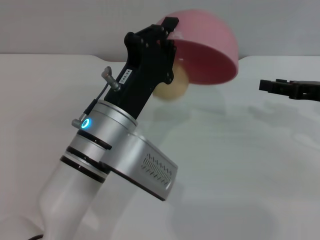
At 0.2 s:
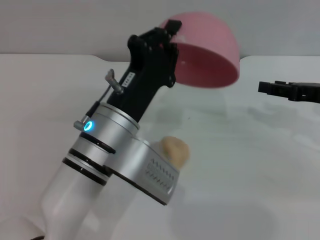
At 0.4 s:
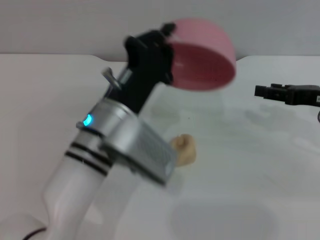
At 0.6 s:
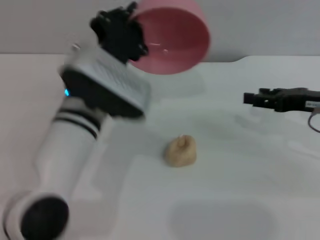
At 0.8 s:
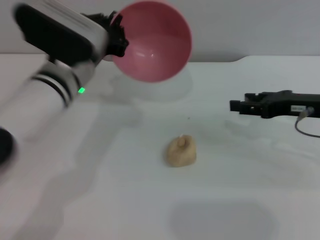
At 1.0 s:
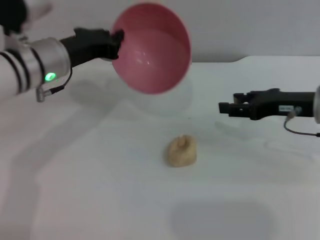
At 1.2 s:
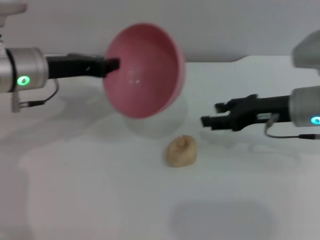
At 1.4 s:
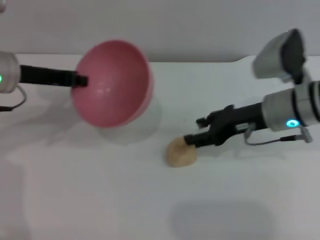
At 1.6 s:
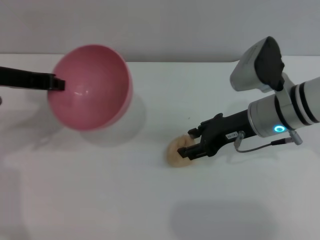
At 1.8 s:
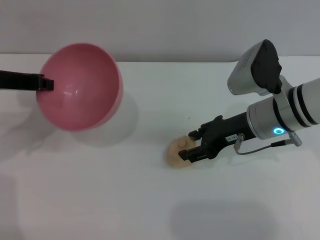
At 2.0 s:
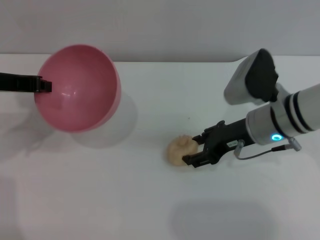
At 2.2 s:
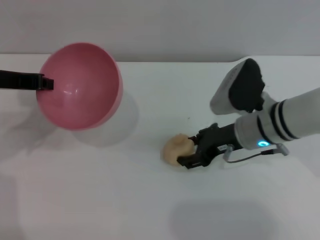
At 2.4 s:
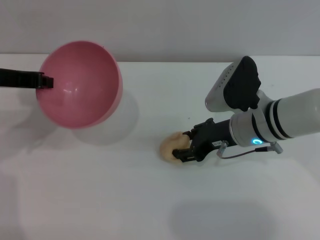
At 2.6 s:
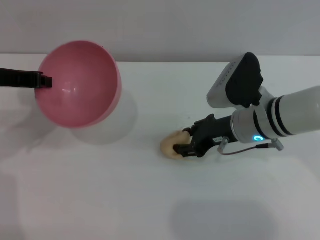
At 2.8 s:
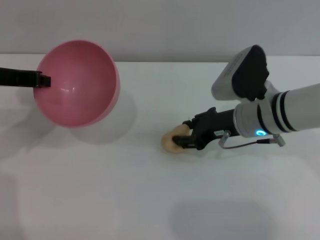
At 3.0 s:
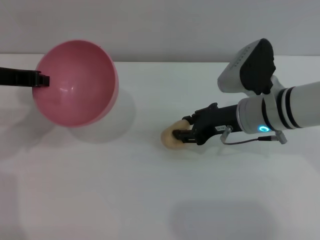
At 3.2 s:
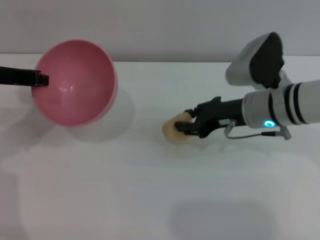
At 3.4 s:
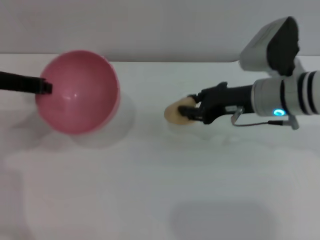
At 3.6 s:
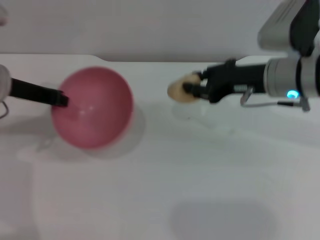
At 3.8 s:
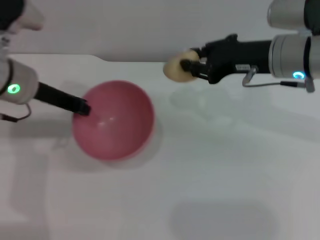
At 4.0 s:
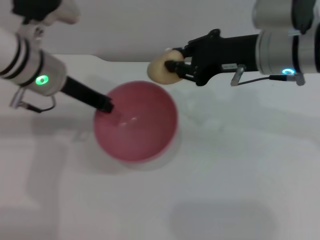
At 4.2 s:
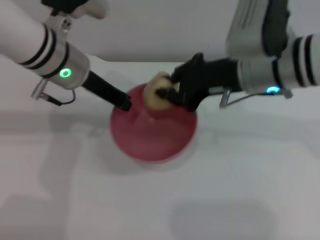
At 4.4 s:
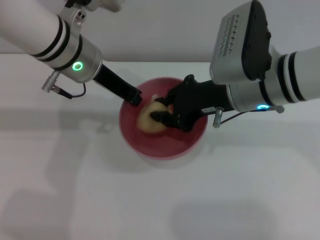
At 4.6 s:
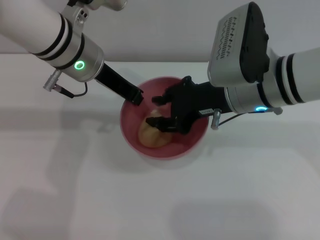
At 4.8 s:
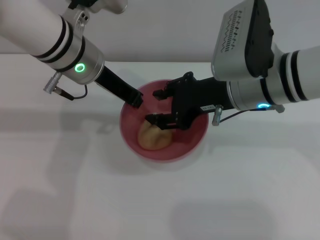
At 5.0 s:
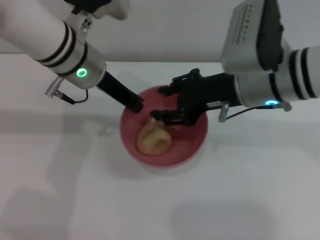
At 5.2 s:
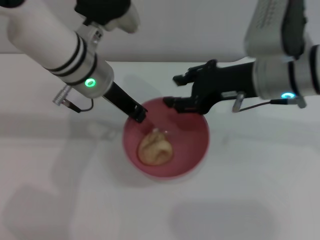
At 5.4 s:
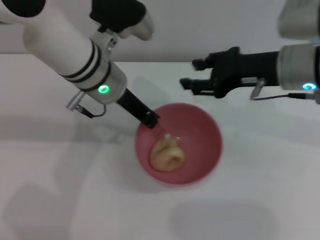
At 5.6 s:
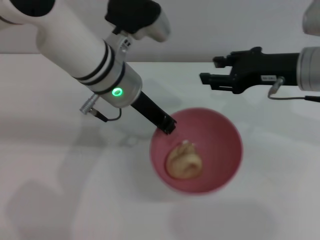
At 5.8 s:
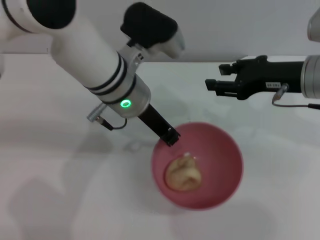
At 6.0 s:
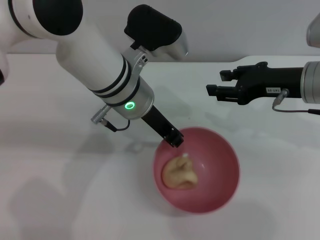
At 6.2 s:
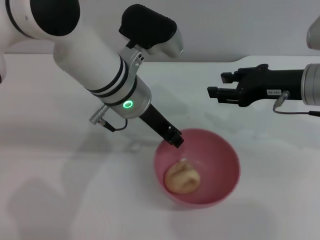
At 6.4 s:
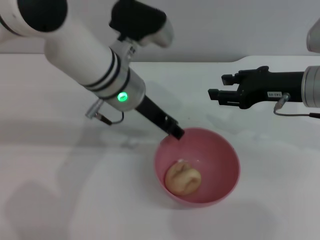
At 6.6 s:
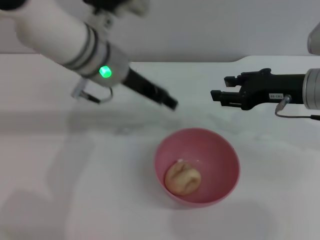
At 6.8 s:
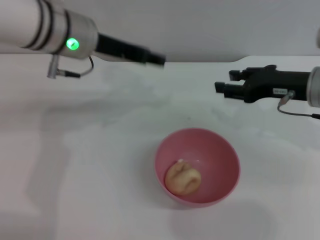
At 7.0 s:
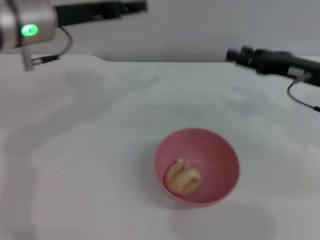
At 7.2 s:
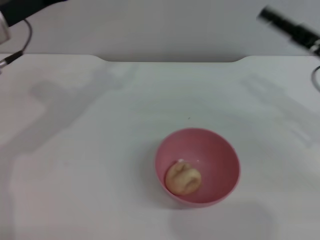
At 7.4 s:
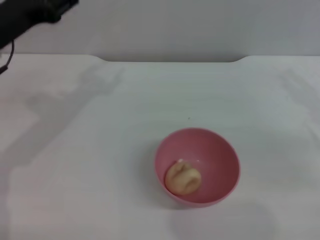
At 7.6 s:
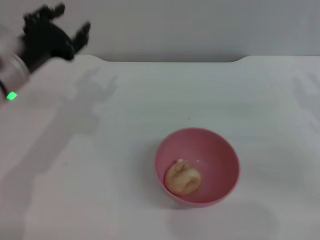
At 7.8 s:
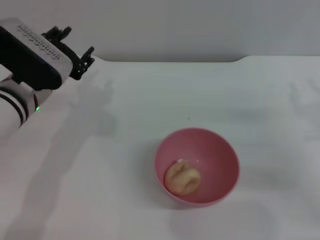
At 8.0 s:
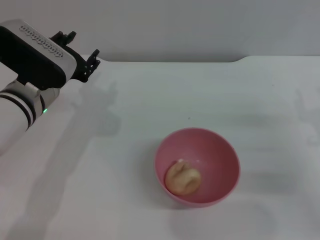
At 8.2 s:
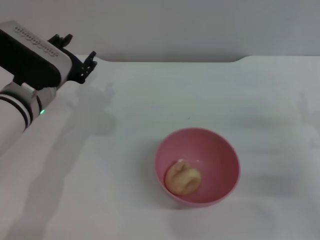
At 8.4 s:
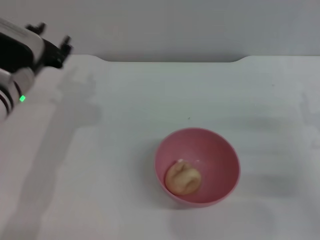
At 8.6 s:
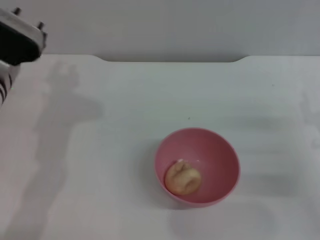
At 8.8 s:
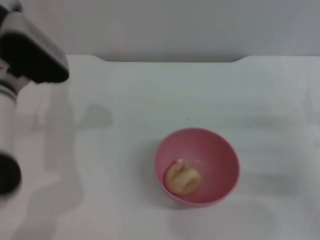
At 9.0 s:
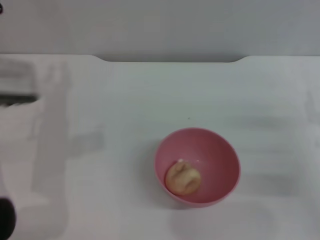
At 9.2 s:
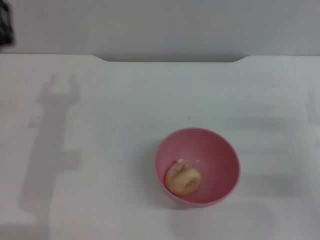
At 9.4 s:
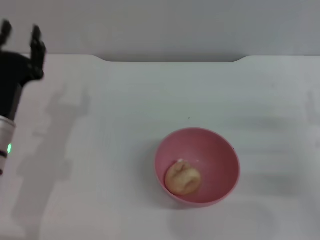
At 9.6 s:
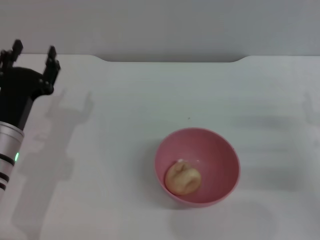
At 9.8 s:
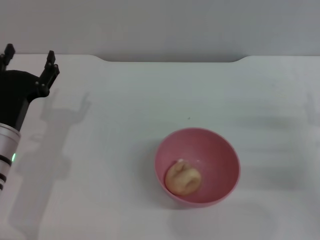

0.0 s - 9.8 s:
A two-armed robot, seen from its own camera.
Task of the whole recording: put the egg yolk pastry into the pink bowl and pour it out repeatedly.
Step, 0.6 s - 3.2 s: Pick up the egg yolk pastry with the right gripper.
Step, 3.4 s - 4.6 s: Place the egg yolk pastry into the bowl.
Step, 5.0 s - 6.6 s: Place the bowl on the table.
0.0 s - 1.4 s: The left gripper moves to the left and forward, some 20 cm. Meanwhile the right gripper heads to the left, covering some 10 cm.
2.8 s - 4.2 s: The left gripper shifts some 15 cm to the right. The right gripper goes roughly 10 cm upward, and closes up.
4.2 s - 5.6 s: The grippers both shift to the right by roughly 5 cm. The right gripper opens up.
5.6 s - 7.0 s: The right gripper ends up some 5 cm from where it was. Meanwhile the left gripper travels to the left by roughly 10 cm, and opens up.
7.0 s - 8.4 s: The right gripper is displaced downward and backward by roughly 15 cm. Meanwhile the left gripper moves downward, roughly 10 cm.
8.4 s - 9.8 s: The left gripper moves backward and downward, approximately 10 cm.

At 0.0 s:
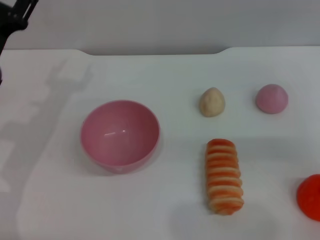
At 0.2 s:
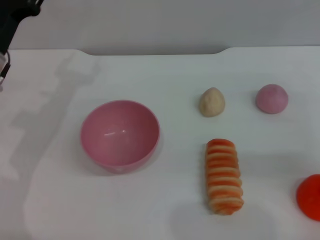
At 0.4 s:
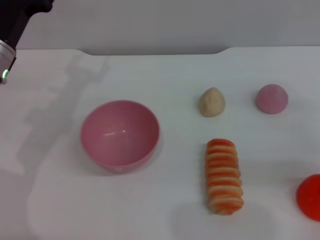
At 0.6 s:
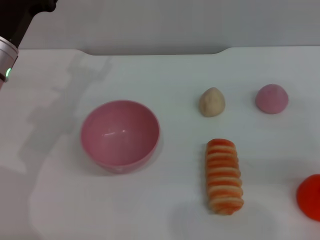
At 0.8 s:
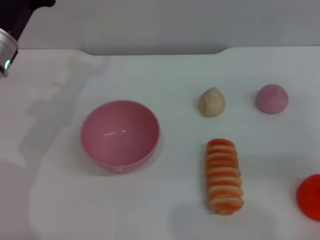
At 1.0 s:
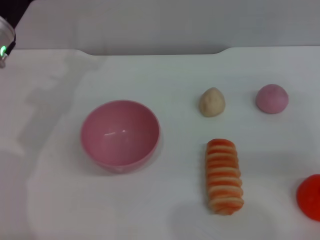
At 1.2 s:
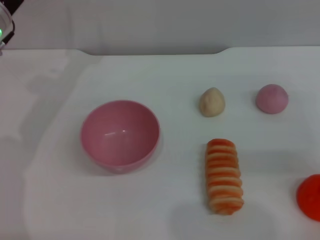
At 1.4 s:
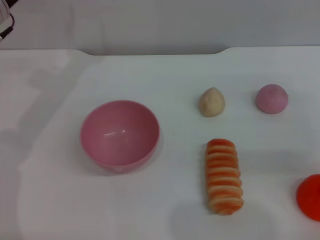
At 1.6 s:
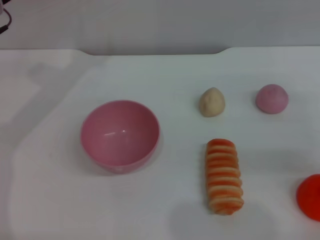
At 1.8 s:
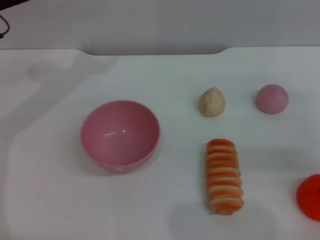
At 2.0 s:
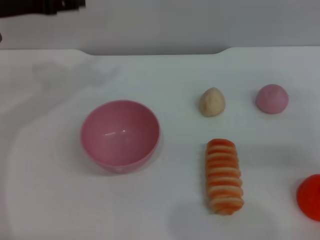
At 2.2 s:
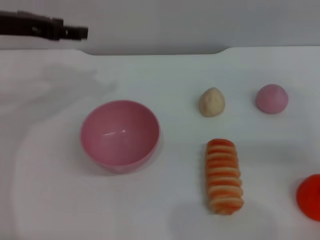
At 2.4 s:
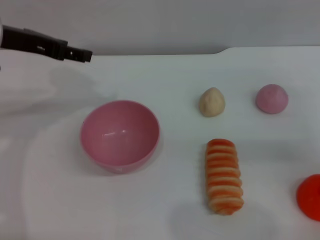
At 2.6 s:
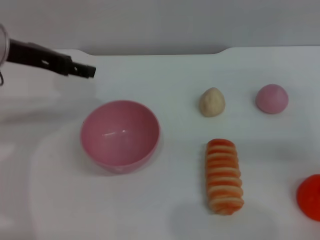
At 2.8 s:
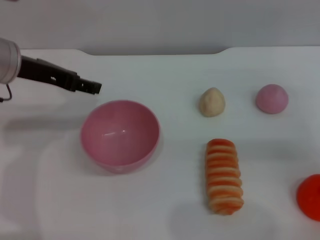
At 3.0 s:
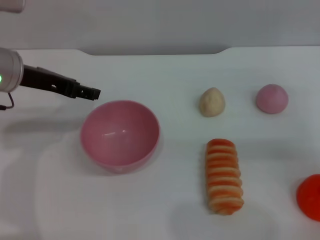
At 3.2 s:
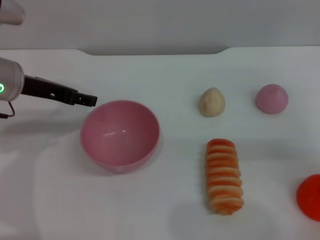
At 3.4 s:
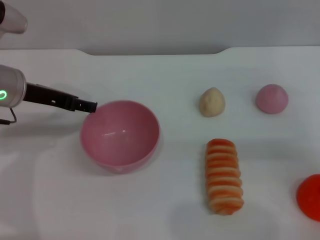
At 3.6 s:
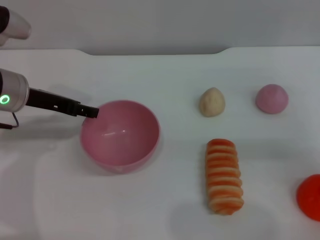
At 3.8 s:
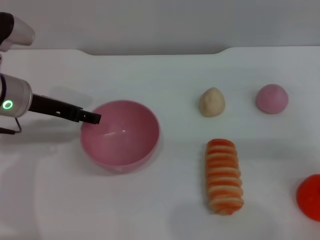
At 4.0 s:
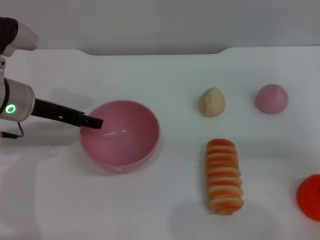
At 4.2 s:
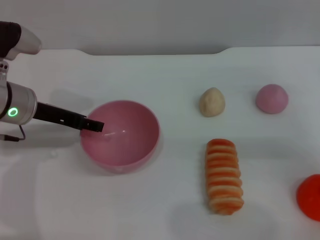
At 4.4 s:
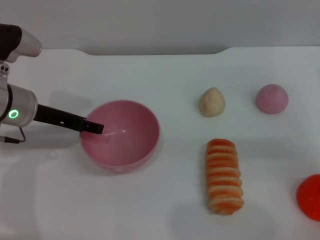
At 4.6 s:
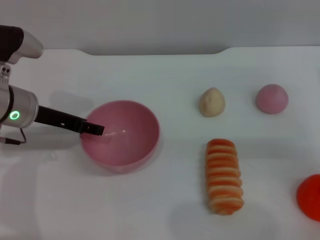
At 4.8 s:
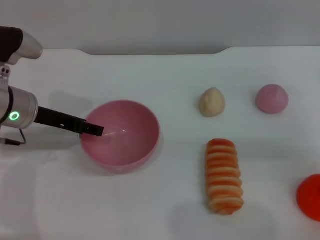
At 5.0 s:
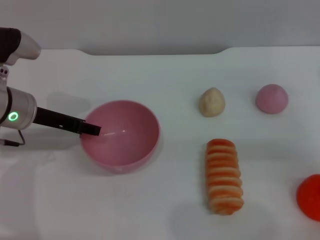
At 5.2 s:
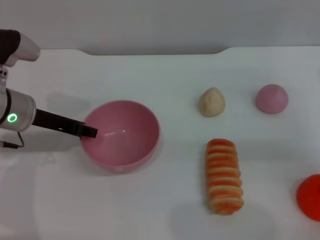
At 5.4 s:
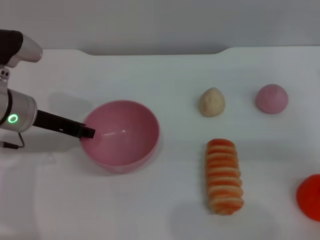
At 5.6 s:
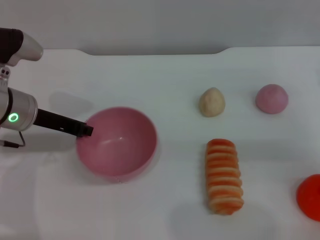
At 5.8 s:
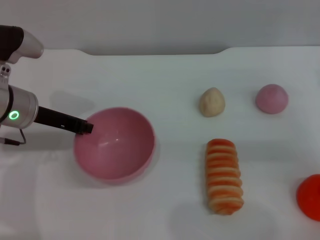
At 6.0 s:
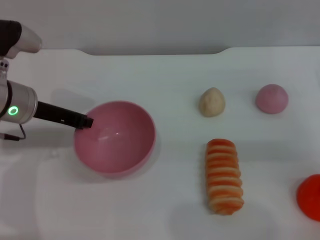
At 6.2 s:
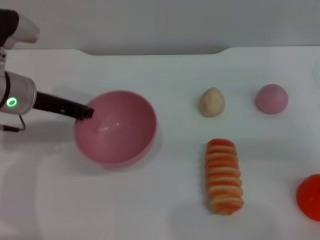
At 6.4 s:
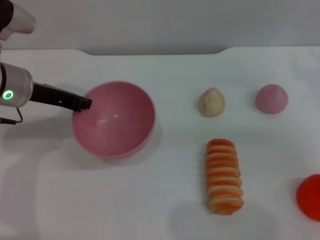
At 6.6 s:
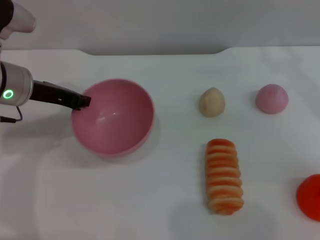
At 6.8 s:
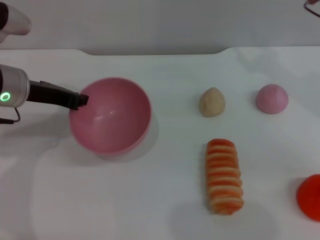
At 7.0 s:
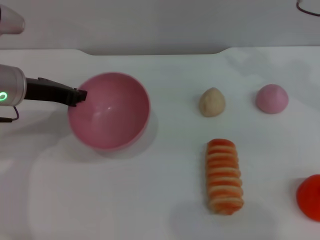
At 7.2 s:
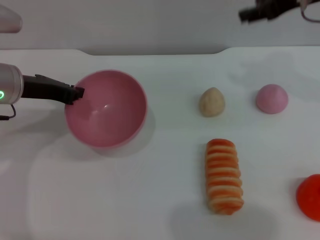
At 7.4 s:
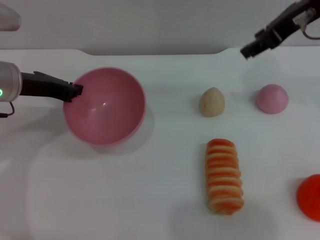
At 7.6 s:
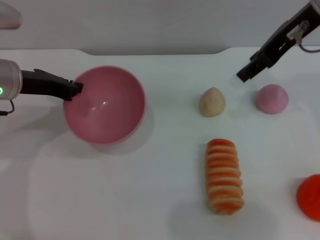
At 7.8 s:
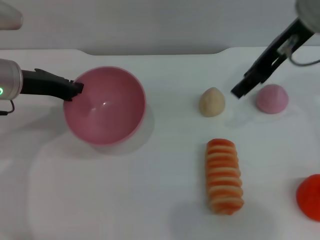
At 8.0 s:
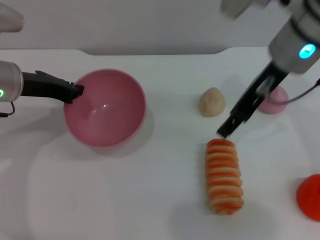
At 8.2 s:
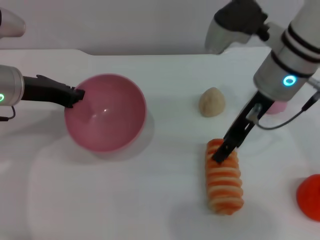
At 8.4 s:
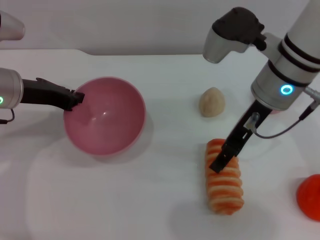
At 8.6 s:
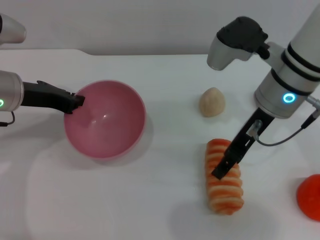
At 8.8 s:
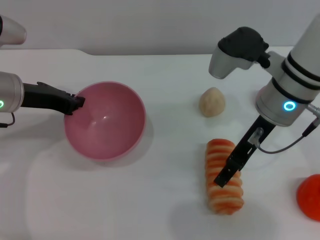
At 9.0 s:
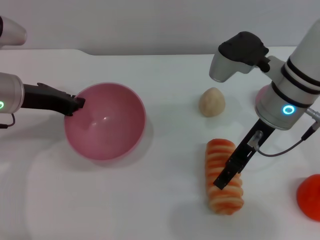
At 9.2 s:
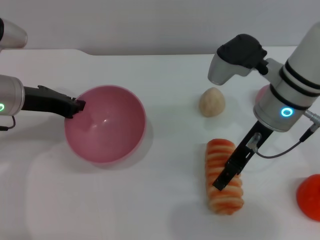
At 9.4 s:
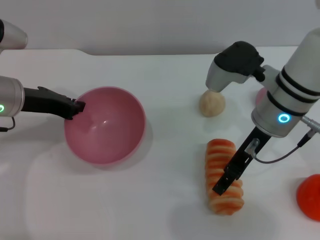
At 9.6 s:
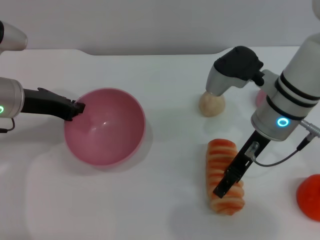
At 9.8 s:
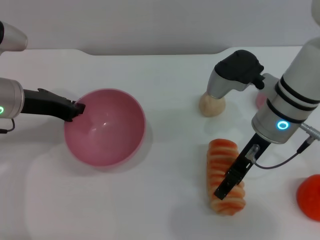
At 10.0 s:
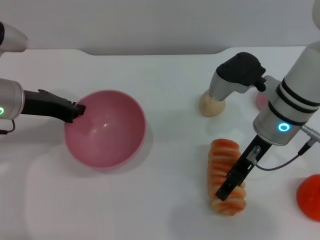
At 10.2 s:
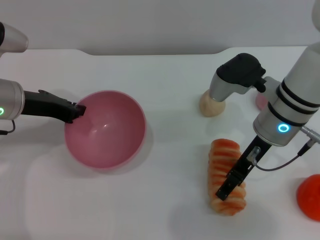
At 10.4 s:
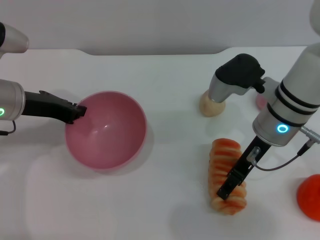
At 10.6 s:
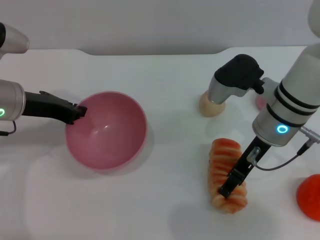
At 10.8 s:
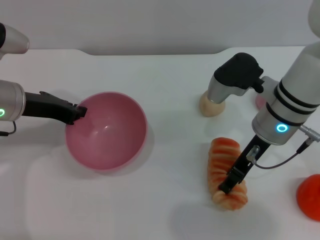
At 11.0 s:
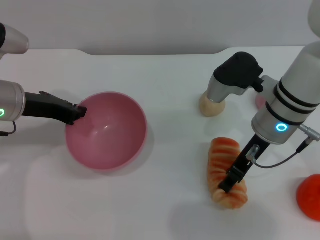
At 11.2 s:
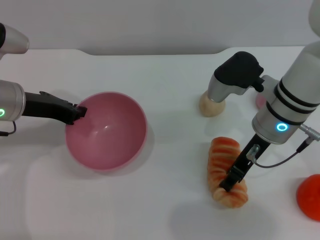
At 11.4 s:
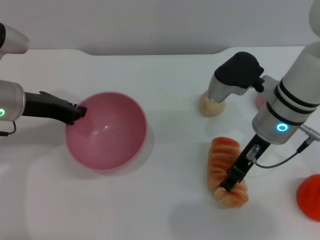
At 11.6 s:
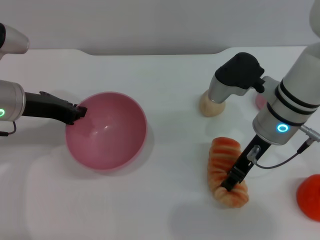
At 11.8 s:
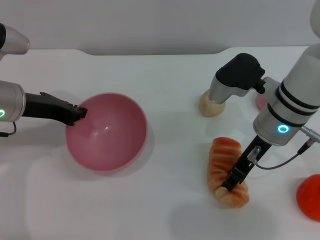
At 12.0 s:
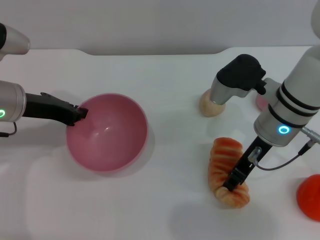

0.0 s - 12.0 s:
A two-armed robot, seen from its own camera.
Task of the whole recording: put the bread into the pink bowl and pour it out repeatedly.
Step, 0.0 s - 7.4 s: Pick up the bowl with the left gripper.
0.0 s - 1.6 s: The left gripper shifts some 10 cm upward and forward.
1.6 s - 3.0 s: The left gripper travels backward by roughly 5 cm.
3.0 s - 4.4 s: The left gripper moves downward, about 5 cm.
4.4 s - 6.0 s: The left gripper closes.
6.0 s - 7.6 s: The right gripper heads upward and to the left, covering roughly 25 cm.
7.6 s - 9.0 s: The right gripper shifts some 15 cm downward.
9.0 s - 10.4 s: The grippers make only small movements.
10.4 s - 12.0 s: The right gripper closes its fingers.
